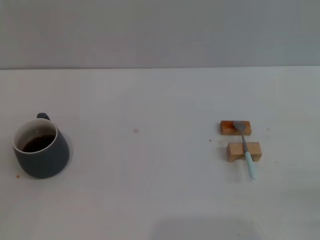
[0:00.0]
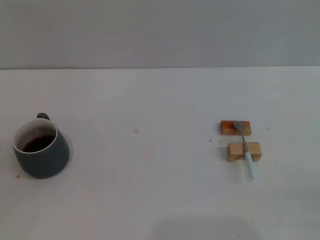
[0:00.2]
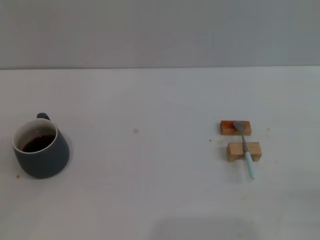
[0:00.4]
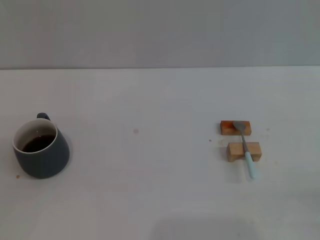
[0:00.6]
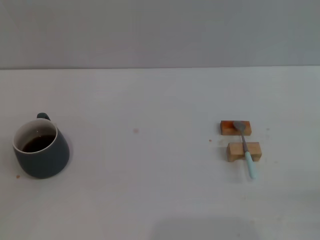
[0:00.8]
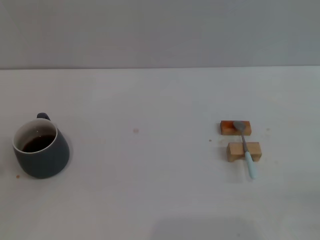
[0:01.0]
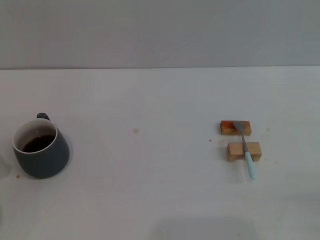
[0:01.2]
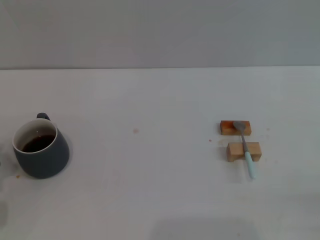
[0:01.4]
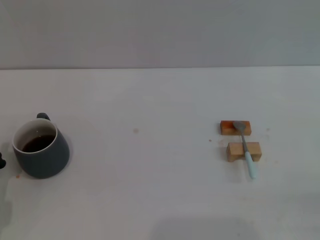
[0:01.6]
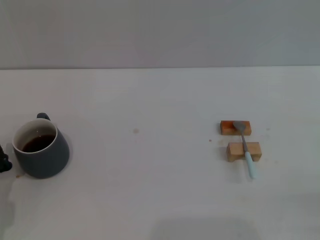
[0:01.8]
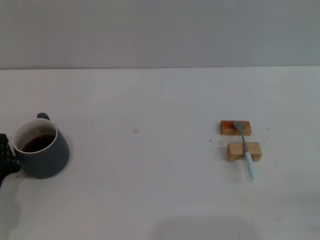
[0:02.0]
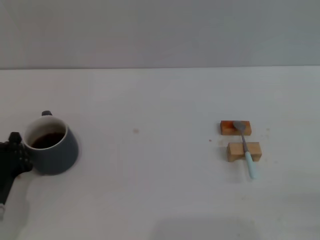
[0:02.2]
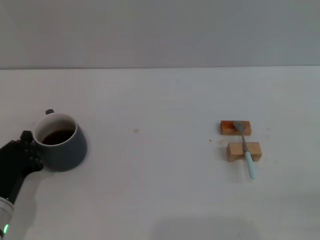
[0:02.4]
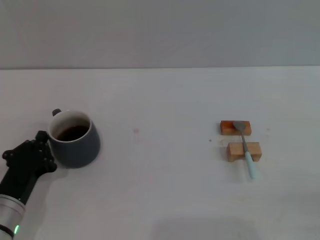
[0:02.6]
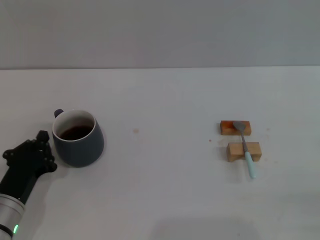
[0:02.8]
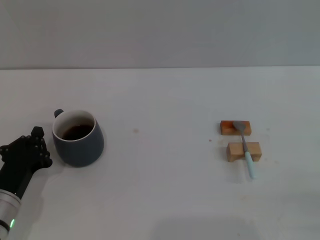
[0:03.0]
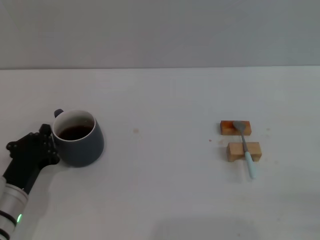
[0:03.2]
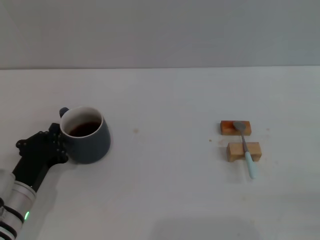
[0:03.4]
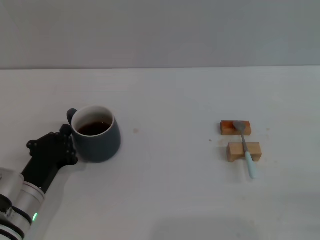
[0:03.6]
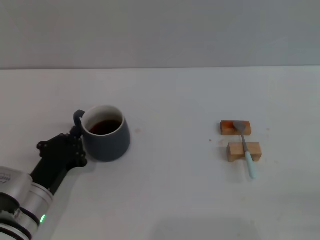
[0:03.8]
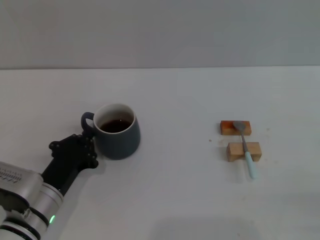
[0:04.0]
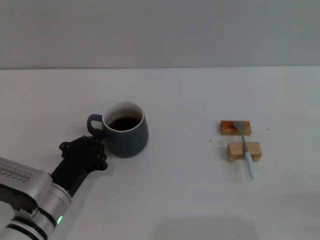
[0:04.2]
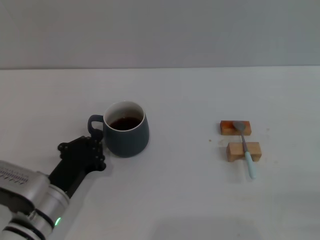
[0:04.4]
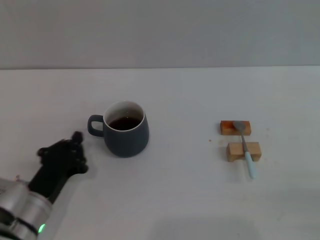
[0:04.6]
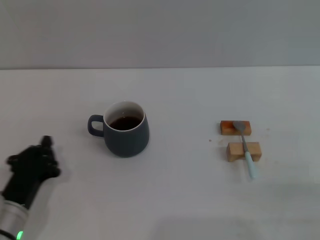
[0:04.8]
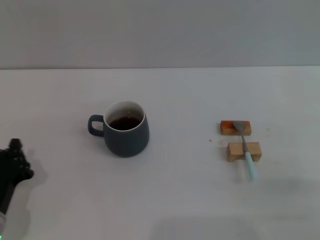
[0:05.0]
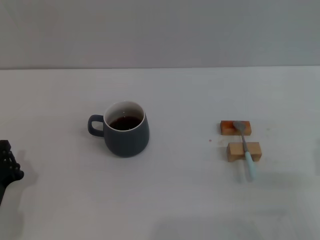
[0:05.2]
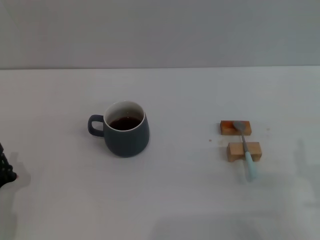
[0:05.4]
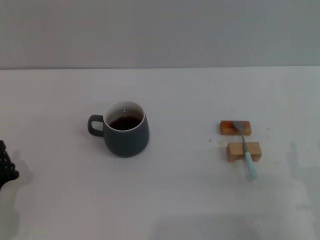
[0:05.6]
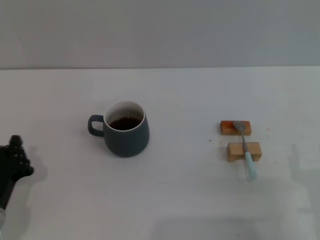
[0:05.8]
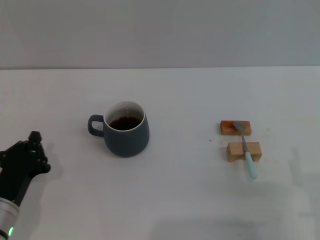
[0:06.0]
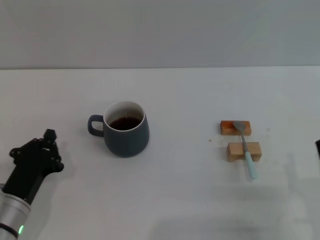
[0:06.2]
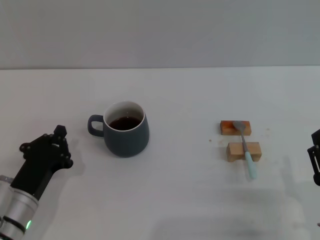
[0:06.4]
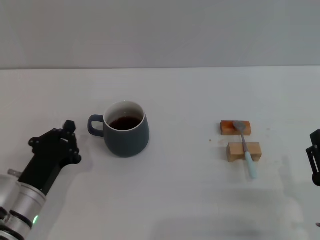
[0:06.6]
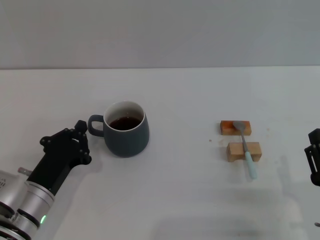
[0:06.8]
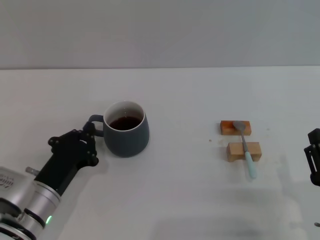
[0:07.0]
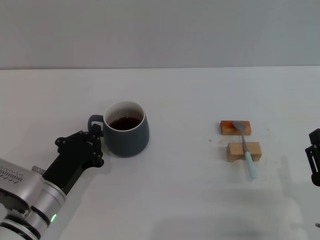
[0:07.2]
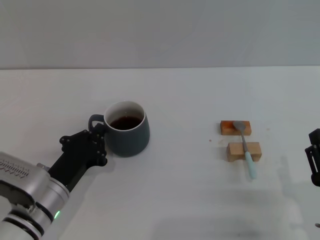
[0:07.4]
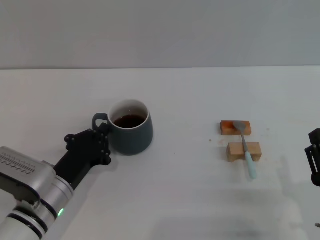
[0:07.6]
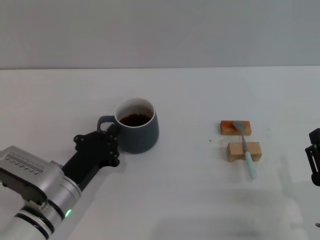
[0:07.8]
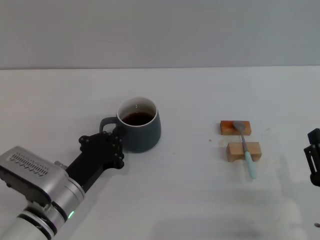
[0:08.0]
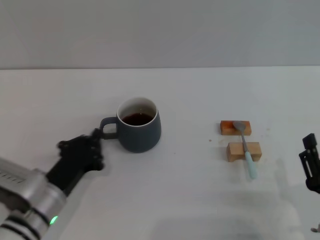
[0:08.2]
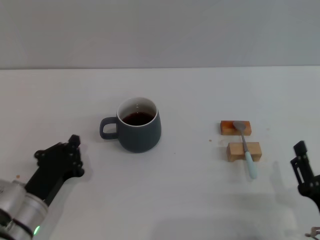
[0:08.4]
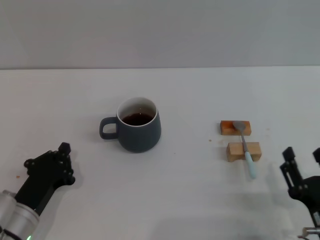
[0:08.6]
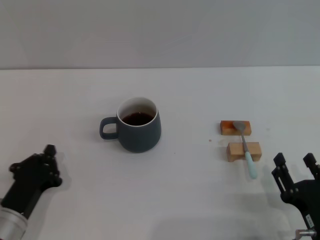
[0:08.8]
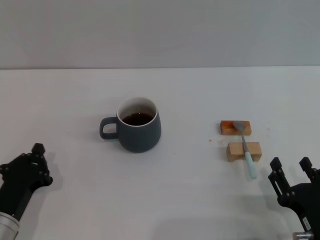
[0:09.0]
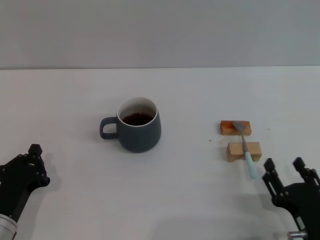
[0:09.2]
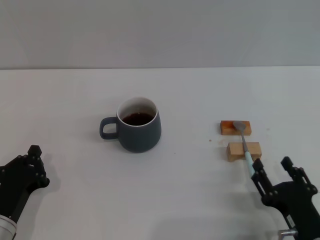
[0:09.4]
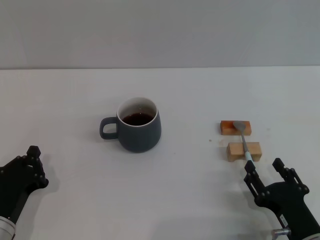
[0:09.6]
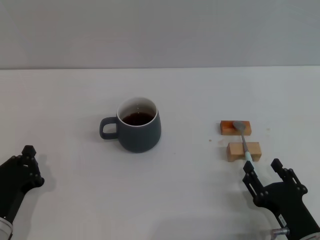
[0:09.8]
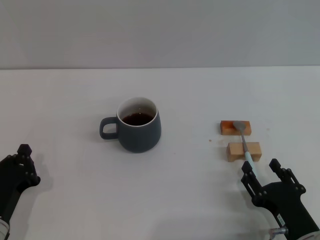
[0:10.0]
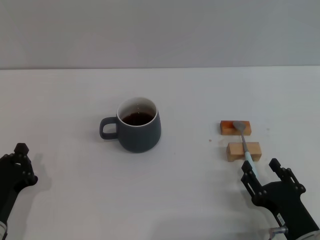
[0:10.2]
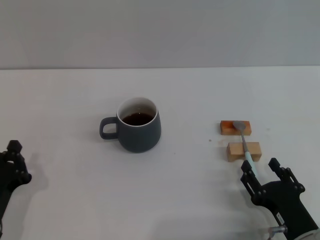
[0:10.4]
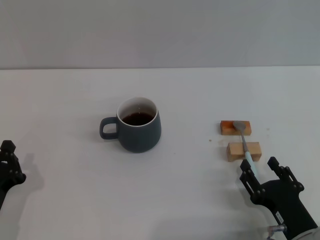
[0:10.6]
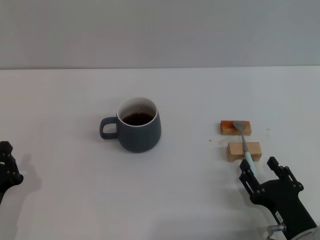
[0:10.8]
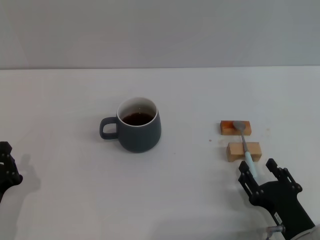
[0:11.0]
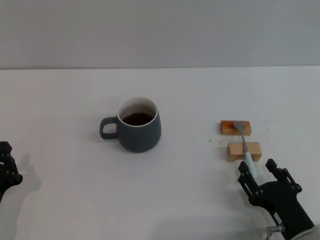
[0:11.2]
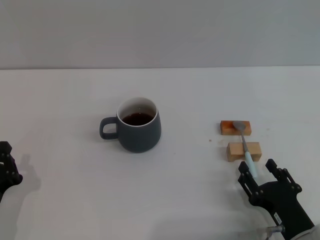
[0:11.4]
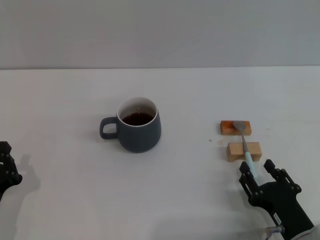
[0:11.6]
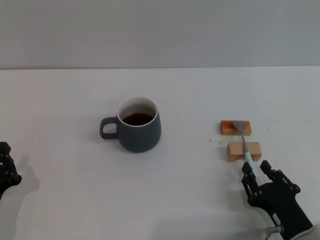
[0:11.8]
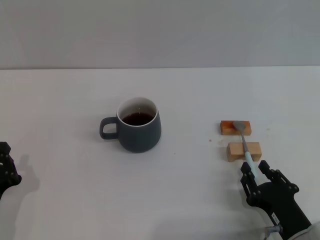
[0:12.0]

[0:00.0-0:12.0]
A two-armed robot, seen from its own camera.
Task of the whole recording: Move the grey cup to the center, lift the blue spoon, stir it three times in the cup, and put the spoon into the cup.
Step, 0:00.0 to 0:08.2: Move the cup with coffee to the center of view with the left gripper.
0:01.6 to 0:03.0: The grippers stay close to where they were, moving slightly.
0:03.0 to 0:04.4: The left gripper heads to the right, covering about 5 cm.
0:04.4 to 0:06.0: The left gripper travels to the left by approximately 5 cm.
0:06.0 to 0:07.6: The left gripper is displaced to the right by approximately 5 cm.
0:07.6 to 0:09.0: The left gripper goes some 10 cm to the left and backward.
0:09.0 to 0:10.4: The grippers make only small movements.
0:10.4 to 0:12.0: The right gripper closes.

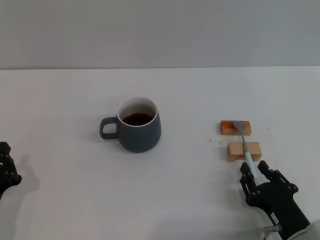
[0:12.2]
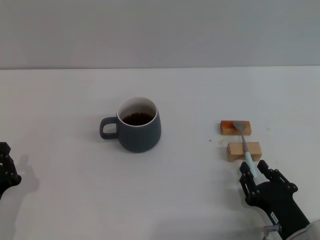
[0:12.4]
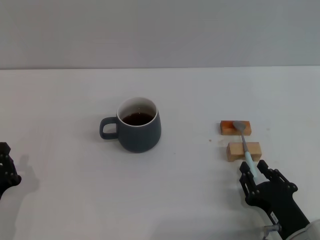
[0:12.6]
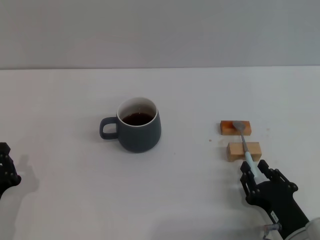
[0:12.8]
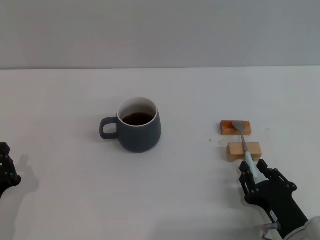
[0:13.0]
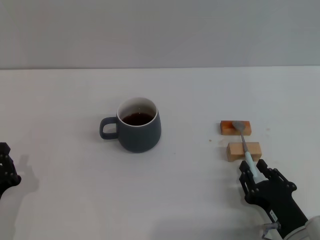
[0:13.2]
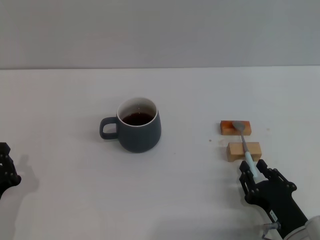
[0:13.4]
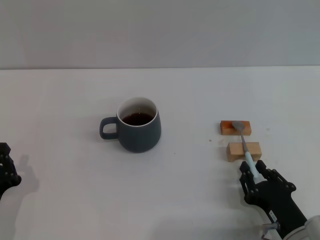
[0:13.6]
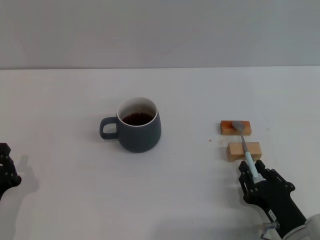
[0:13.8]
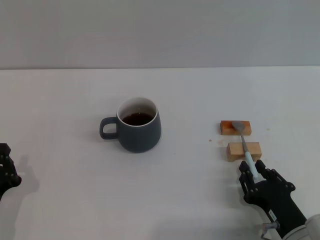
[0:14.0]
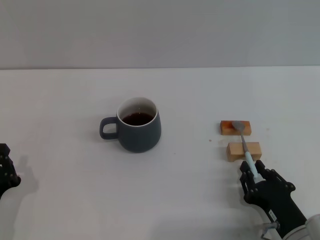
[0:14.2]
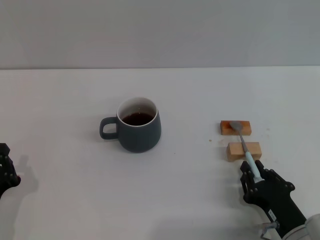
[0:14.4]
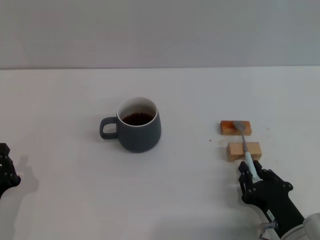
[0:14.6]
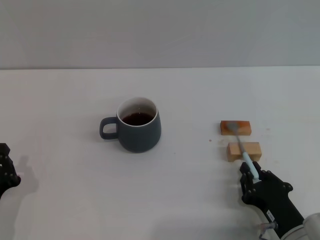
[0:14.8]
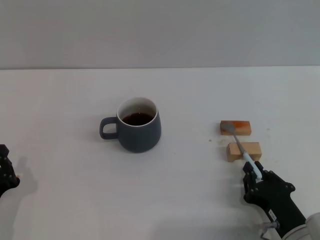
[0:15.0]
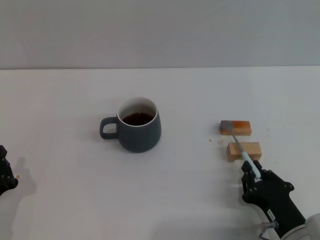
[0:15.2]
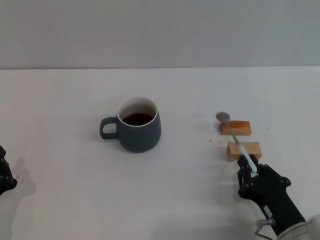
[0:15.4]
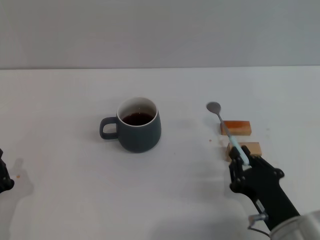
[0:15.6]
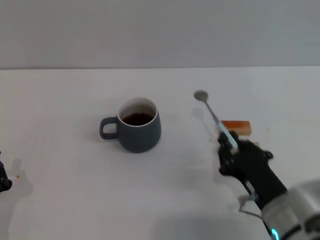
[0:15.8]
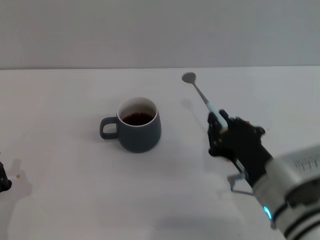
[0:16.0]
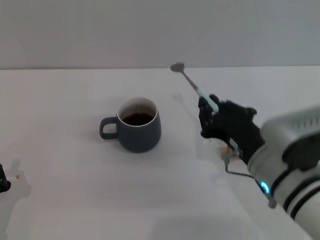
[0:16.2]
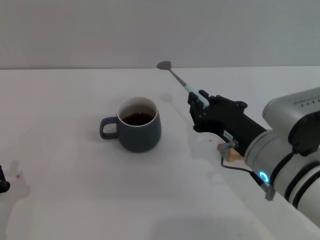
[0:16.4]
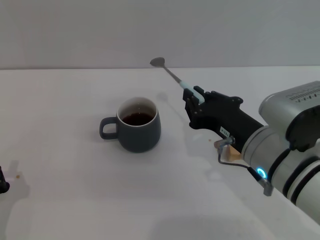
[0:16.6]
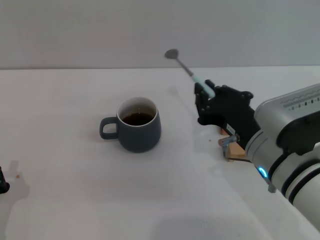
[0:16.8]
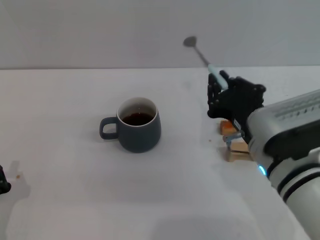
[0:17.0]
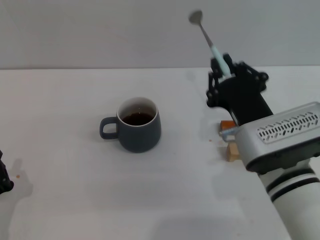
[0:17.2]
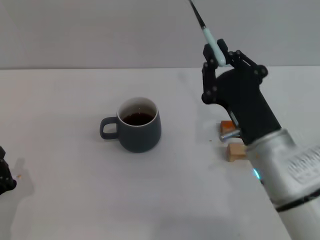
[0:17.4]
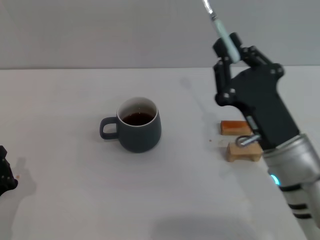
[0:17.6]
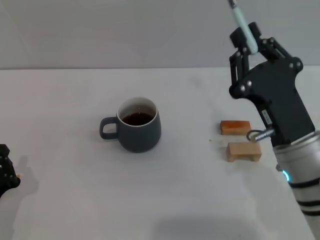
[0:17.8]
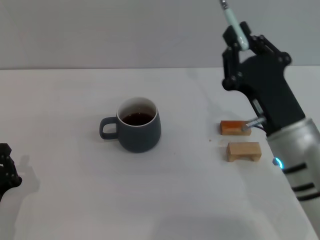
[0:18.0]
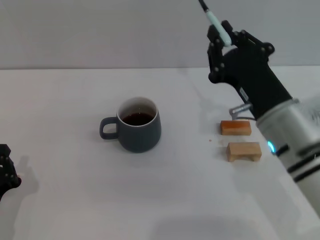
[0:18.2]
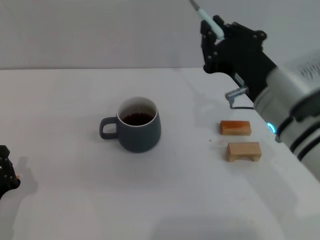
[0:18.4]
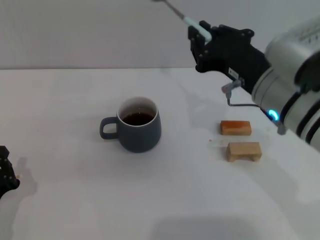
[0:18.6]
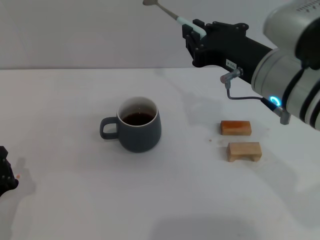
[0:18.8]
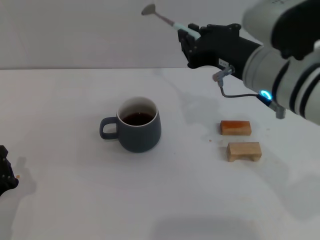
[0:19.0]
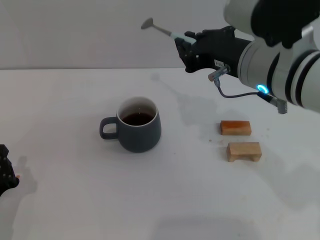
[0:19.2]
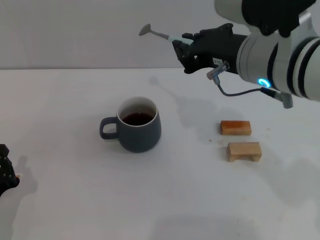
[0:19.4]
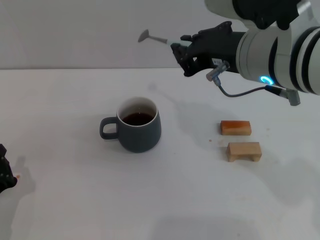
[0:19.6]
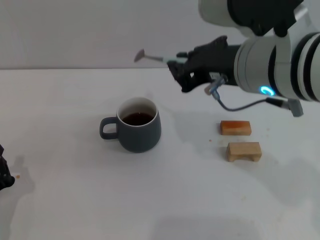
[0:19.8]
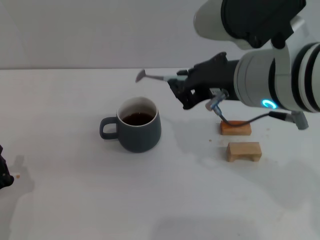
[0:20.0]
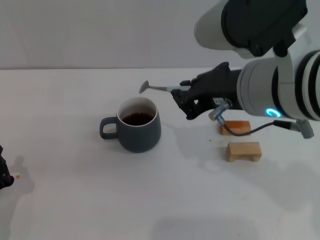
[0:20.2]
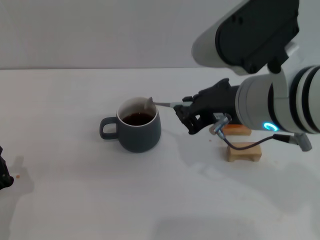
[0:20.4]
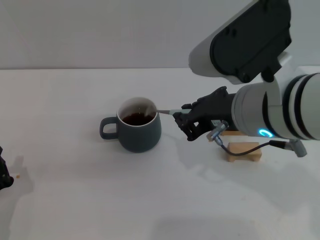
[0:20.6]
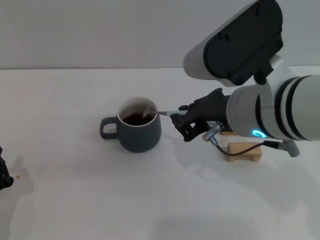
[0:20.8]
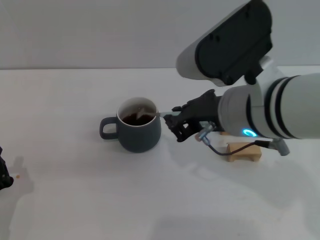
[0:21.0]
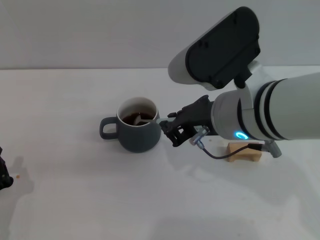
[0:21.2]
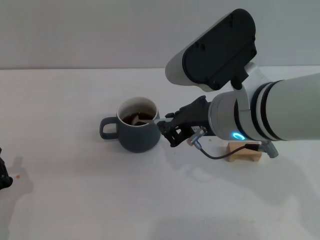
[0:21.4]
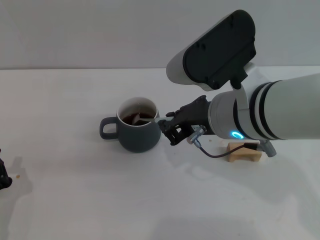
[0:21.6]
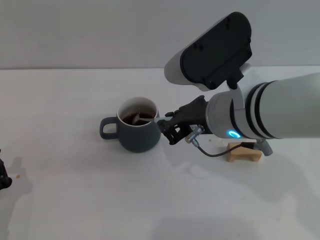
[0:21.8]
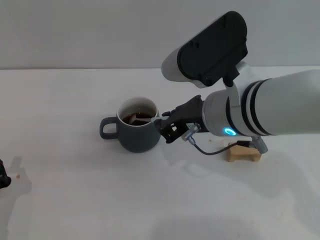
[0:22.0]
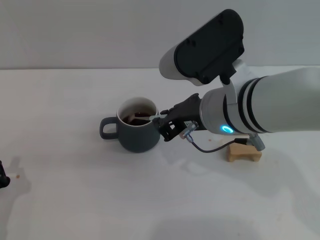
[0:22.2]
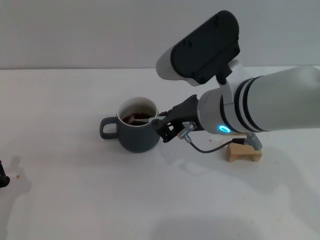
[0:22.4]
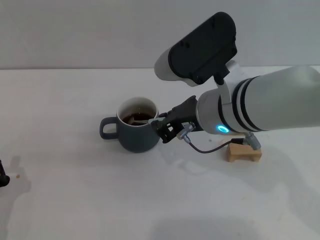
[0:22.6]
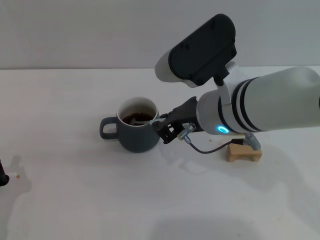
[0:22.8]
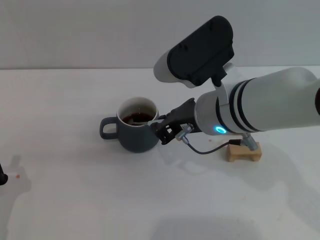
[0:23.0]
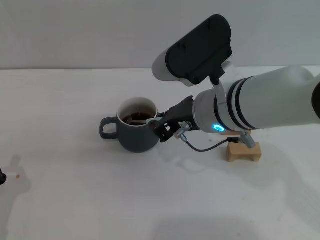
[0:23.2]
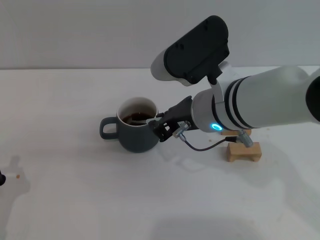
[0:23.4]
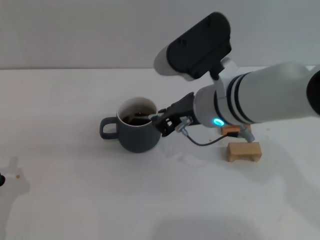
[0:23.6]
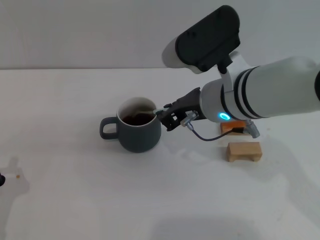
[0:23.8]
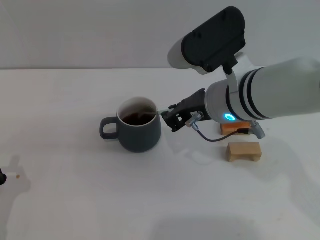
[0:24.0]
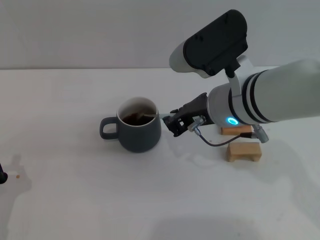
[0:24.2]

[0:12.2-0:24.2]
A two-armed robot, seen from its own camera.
Task of the whole recording: Move the grey cup to the center, lift the blue spoon, stir it three times in the cup, and put the spoon into the cup.
Step, 0:12.2 to 0:16.0: Pick up the spoon with the right gripper.
0:12.2 to 0:13.8: Neither gripper changes place.
0:13.8 to 0:15.2: The right gripper closes.
0:15.2 to 0:16.6: The right gripper heads upward, forward and to the left, covering approximately 15 cm.
0:18.2 to 0:19.8: The right gripper is displaced upward by roughly 10 cm.
0:19.8 to 0:21.2: The right gripper changes place by about 5 cm.
0:21.2 to 0:24.2: The grippers move only a little.
